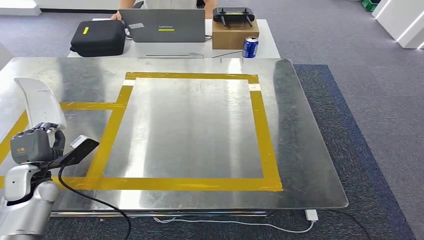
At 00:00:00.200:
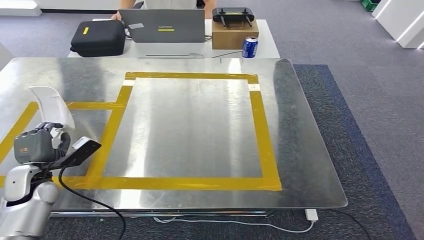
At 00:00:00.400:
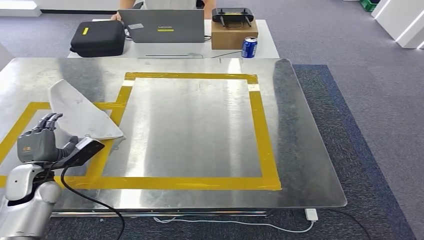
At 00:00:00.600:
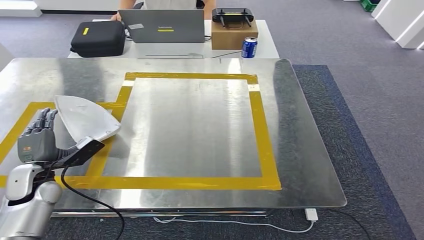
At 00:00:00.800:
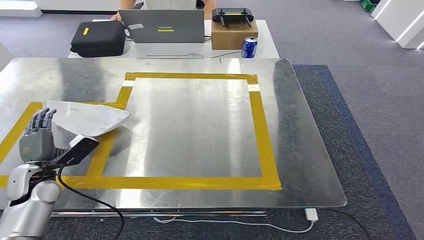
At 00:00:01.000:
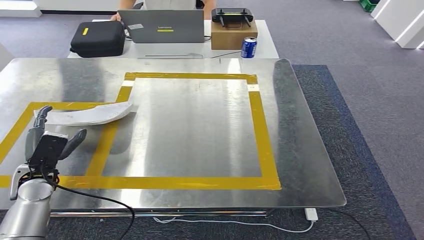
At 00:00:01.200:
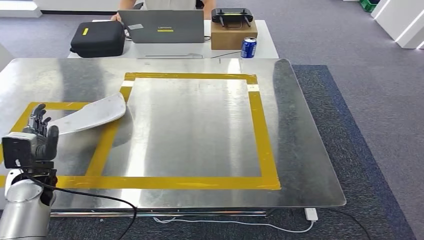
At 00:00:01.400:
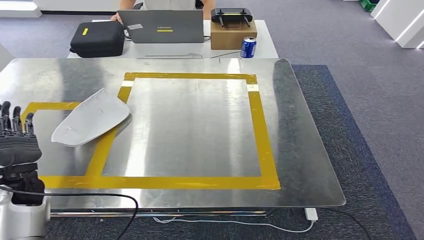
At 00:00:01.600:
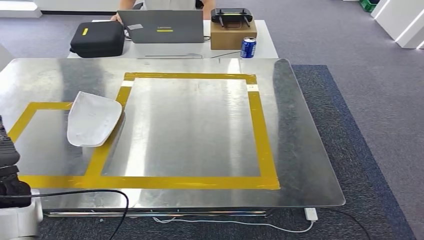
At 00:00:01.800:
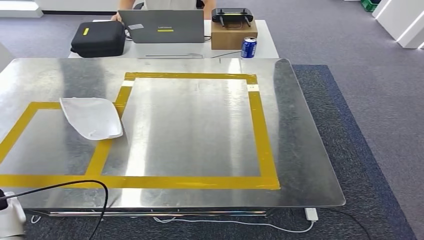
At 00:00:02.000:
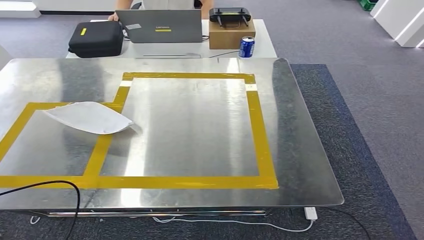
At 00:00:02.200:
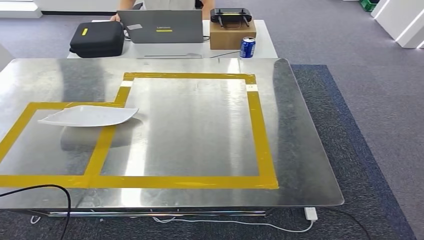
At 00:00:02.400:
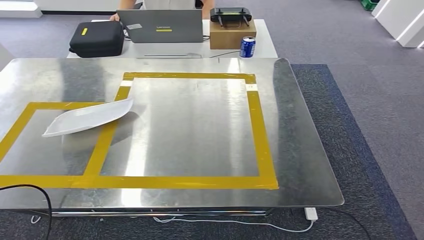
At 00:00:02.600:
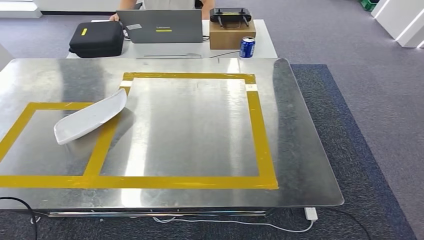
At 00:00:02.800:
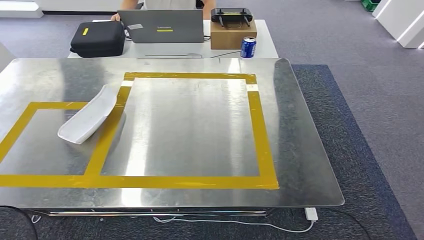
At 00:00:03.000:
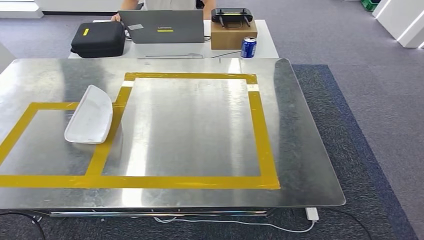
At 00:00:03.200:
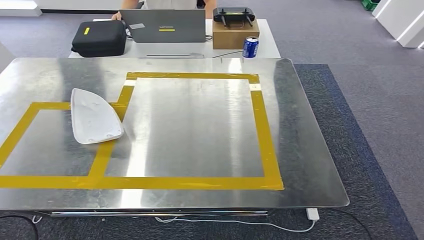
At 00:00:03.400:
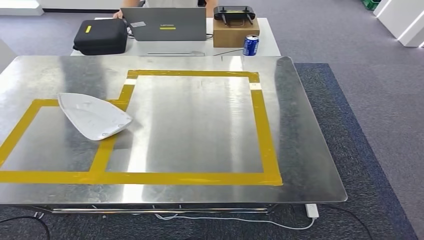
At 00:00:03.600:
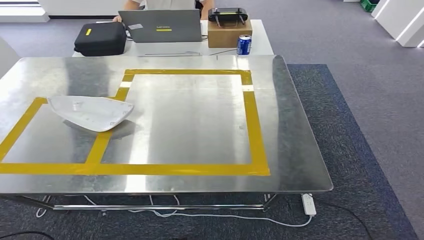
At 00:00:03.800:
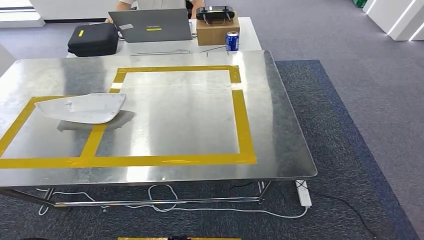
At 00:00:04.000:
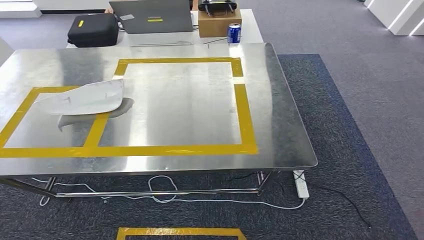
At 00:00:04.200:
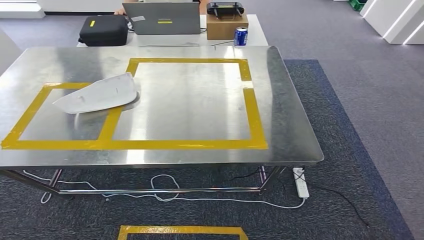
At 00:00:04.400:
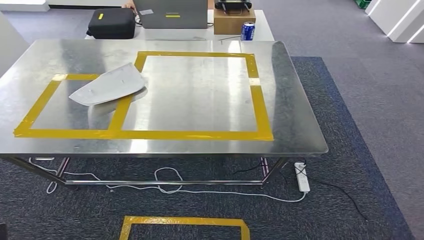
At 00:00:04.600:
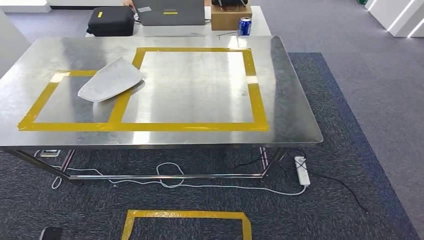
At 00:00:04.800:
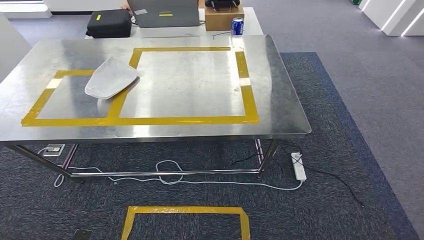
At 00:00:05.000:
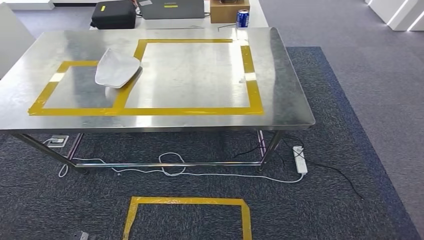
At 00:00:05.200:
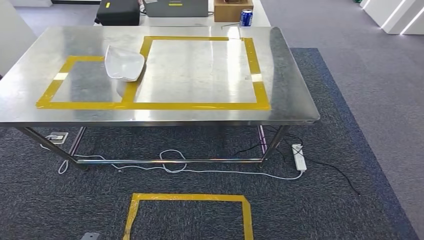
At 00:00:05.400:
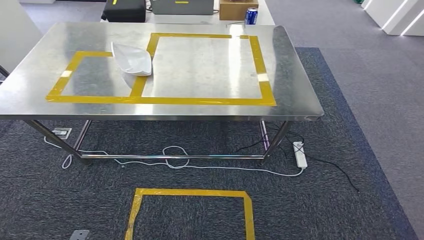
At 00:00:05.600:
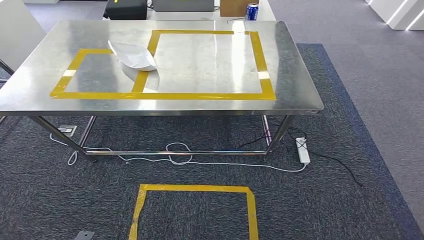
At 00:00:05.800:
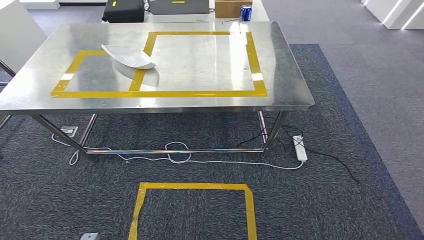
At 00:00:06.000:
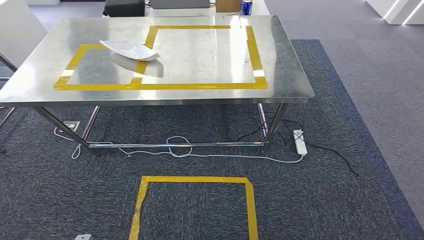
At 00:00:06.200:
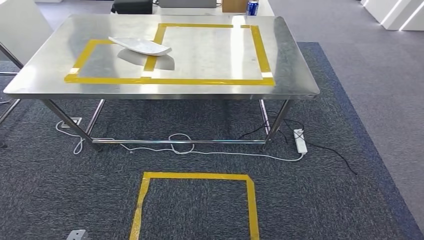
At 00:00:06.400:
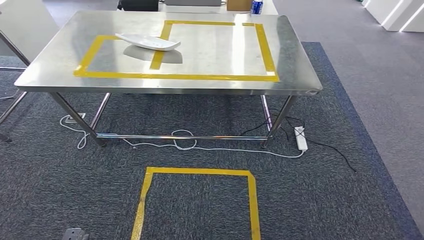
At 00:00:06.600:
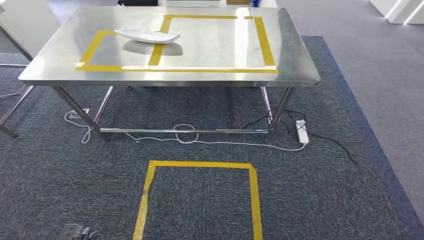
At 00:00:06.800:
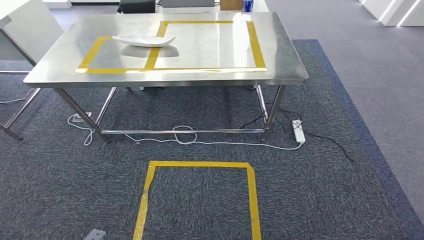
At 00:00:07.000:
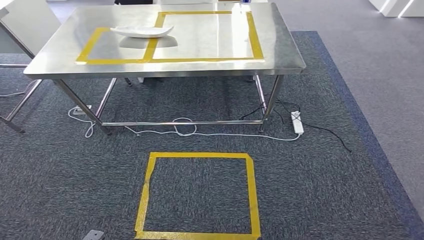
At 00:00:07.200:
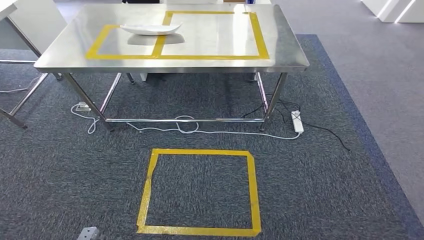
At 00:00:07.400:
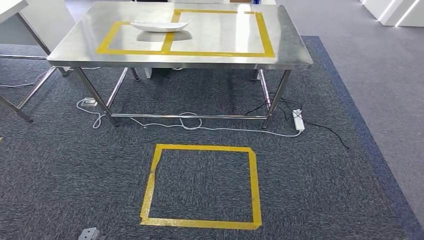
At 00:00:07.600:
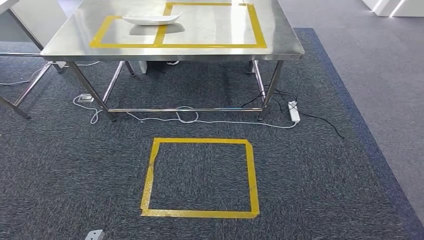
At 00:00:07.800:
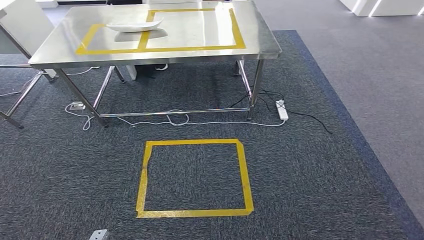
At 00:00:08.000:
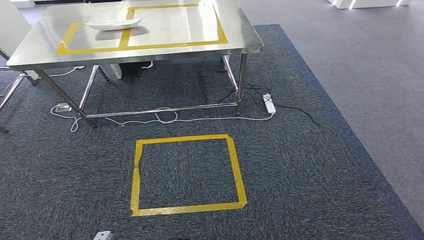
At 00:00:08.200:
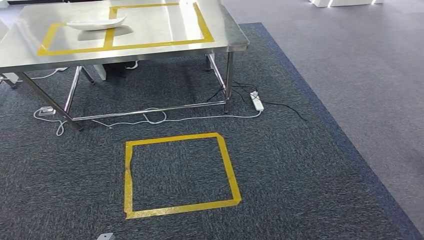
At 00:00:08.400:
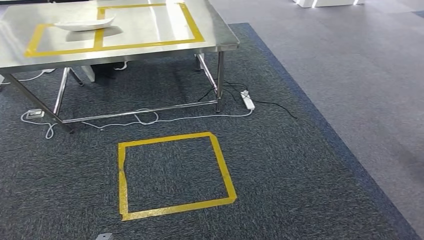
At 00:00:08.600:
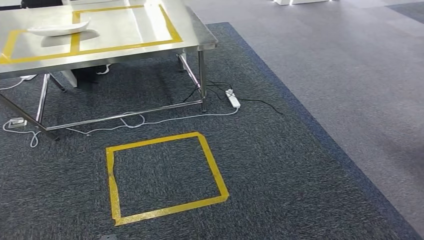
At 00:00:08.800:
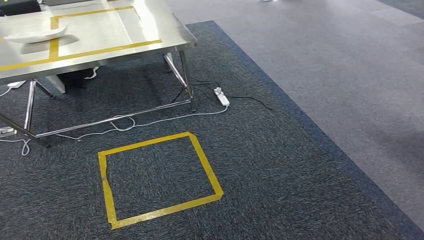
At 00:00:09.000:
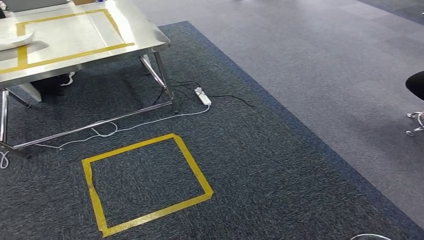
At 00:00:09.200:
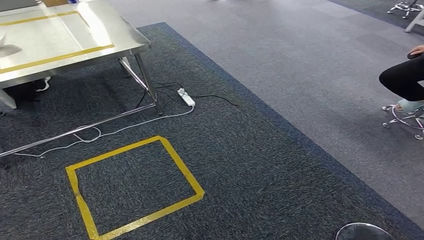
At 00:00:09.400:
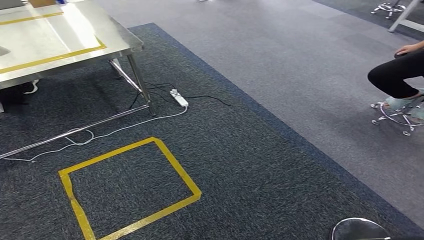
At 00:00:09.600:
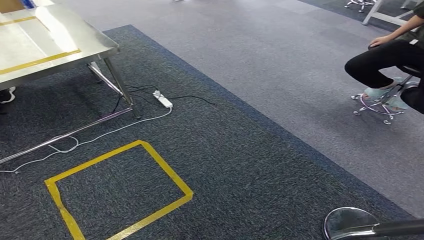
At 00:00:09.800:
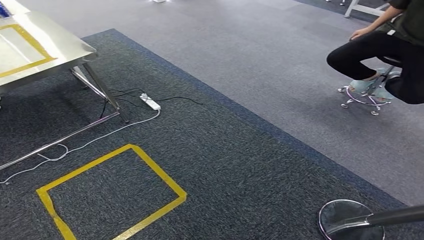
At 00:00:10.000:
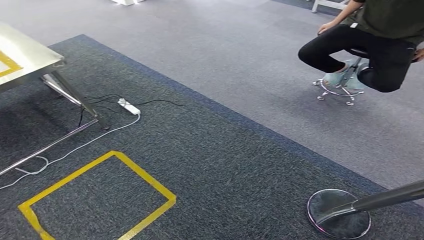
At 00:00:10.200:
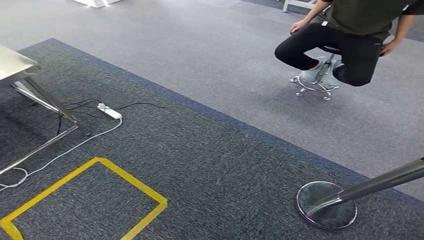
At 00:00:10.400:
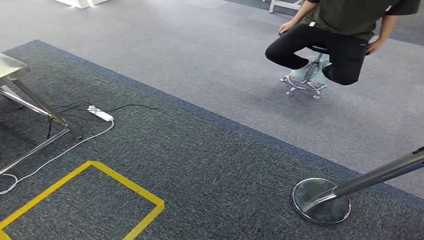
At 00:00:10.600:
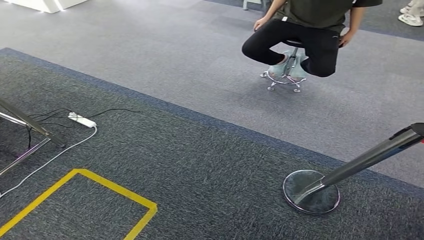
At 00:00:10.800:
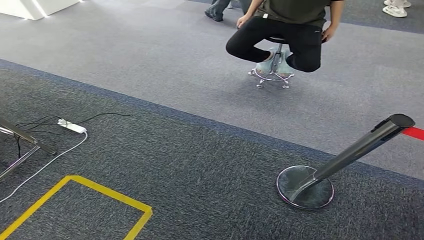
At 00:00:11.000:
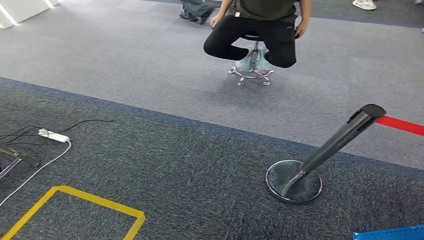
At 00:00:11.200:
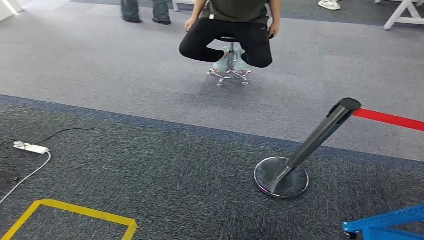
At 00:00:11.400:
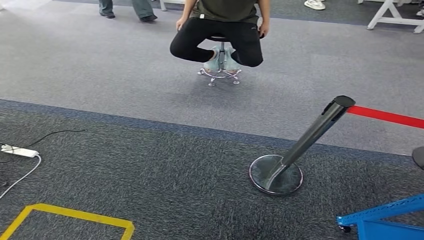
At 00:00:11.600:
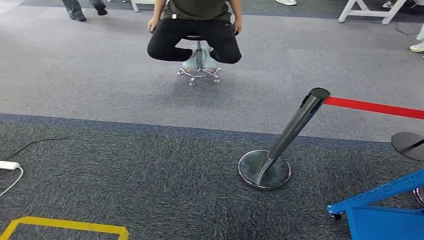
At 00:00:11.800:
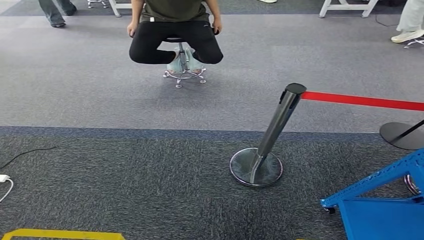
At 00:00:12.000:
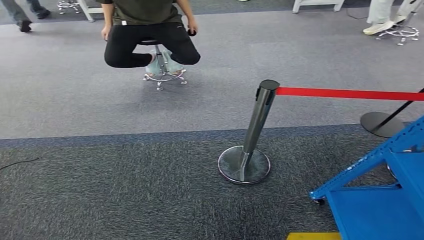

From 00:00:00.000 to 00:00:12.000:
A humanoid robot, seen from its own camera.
Step, from 00:00:00.000 to 00:00:02.000: Insert the small parts into the corresponding slots on the workbench.
From 00:00:01.600 to 00:00:03.000: The left hand travels backward and to the left by roughly 25 cm.

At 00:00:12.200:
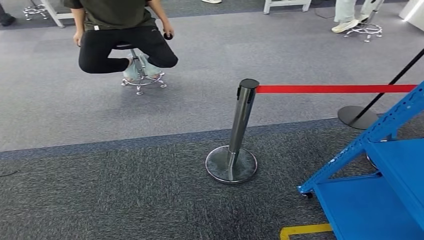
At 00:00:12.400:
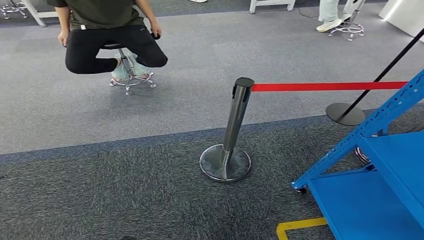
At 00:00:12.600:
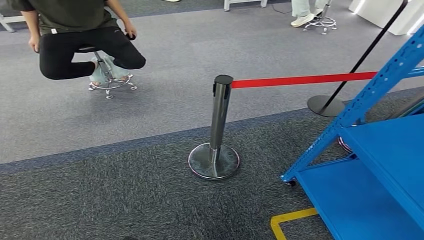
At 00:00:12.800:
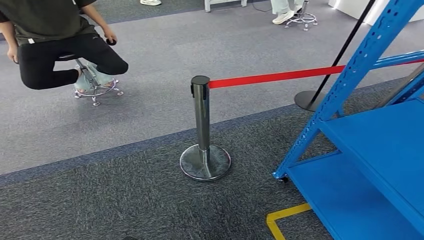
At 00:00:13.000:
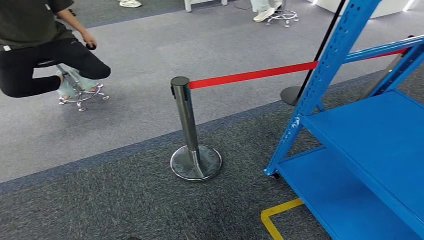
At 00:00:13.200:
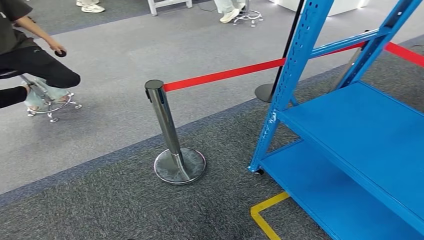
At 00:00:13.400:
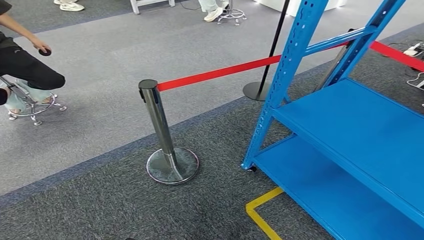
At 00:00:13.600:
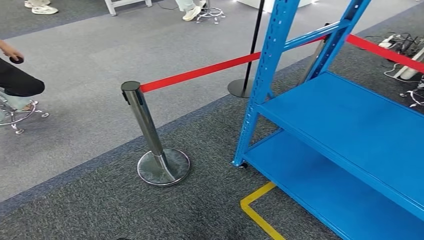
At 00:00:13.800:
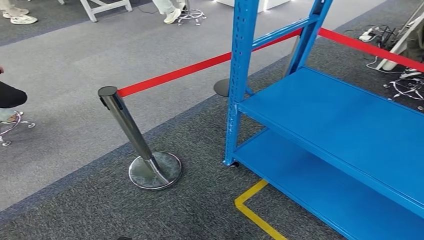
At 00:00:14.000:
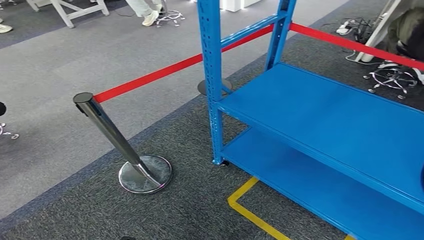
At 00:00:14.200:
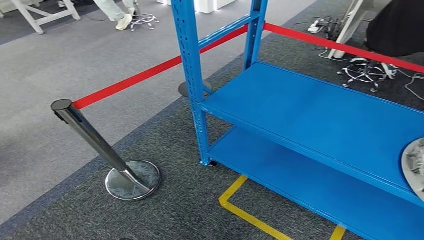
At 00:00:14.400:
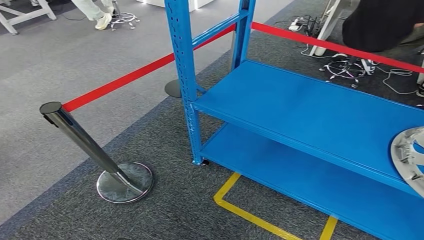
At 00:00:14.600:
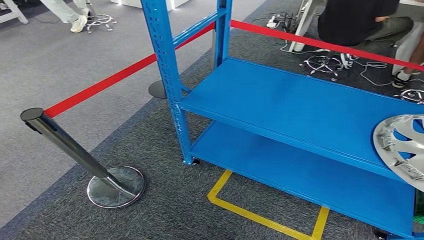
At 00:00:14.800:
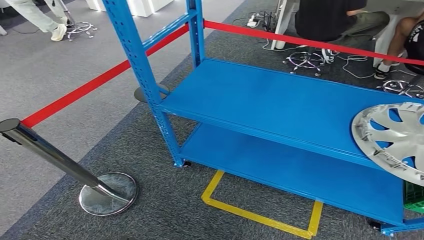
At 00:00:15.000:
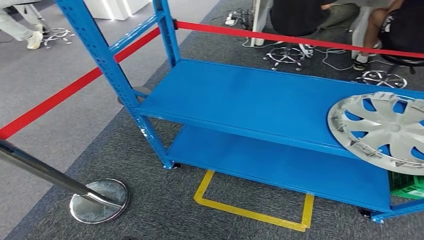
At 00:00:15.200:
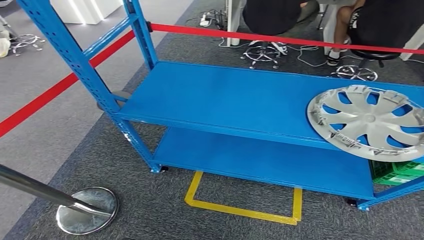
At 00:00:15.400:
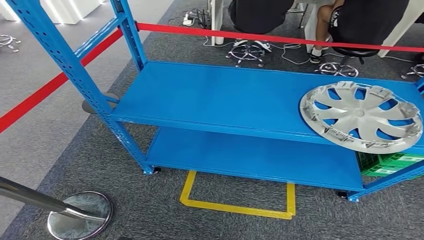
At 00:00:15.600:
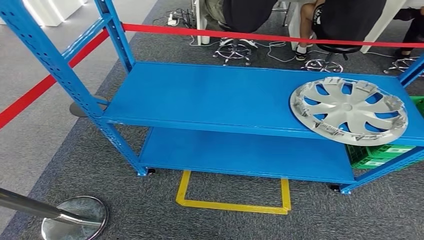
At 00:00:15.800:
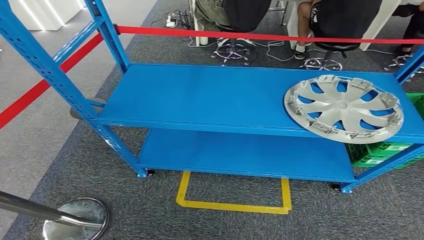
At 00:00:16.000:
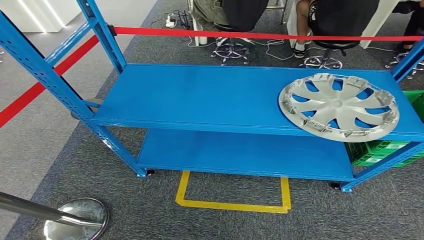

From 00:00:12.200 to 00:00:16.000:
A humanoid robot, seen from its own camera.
Step, from 00:00:12.200 to 00:00:16.000: Return to the initial position at the workbench.
